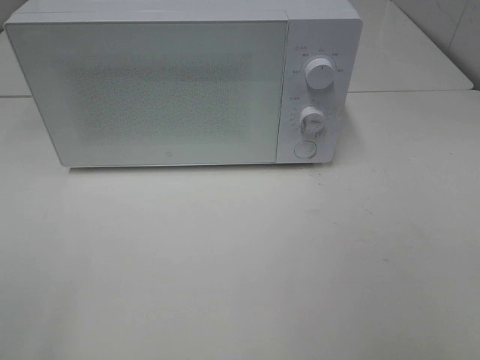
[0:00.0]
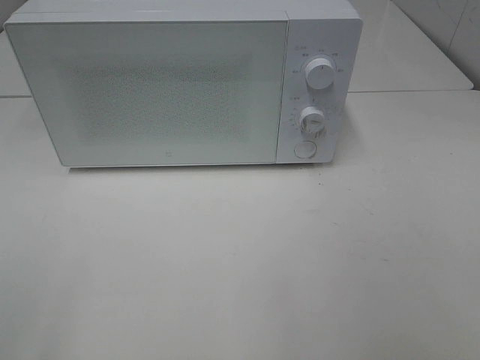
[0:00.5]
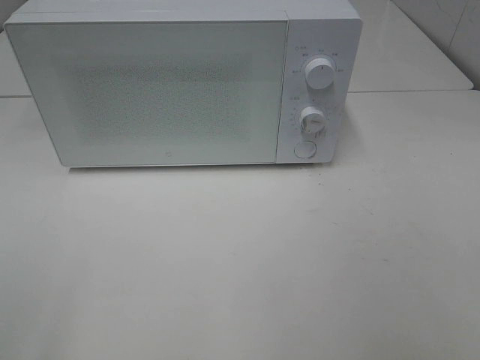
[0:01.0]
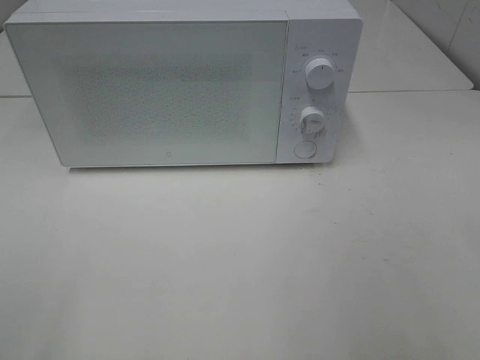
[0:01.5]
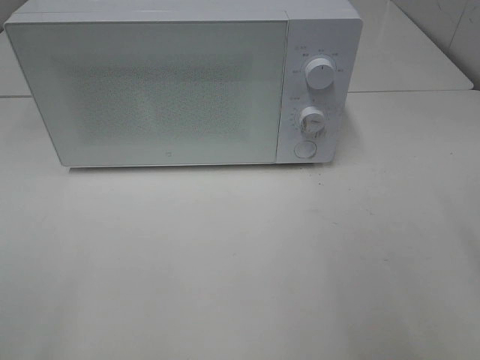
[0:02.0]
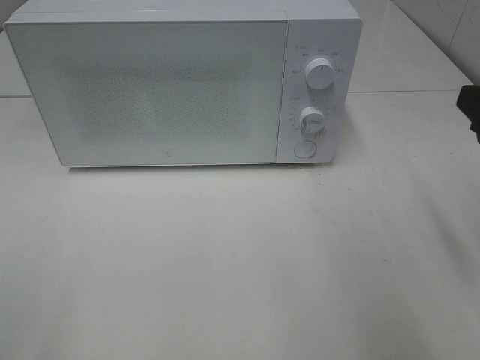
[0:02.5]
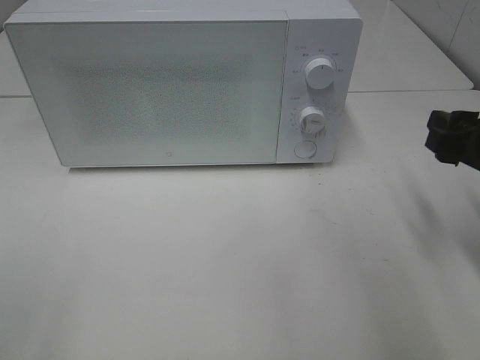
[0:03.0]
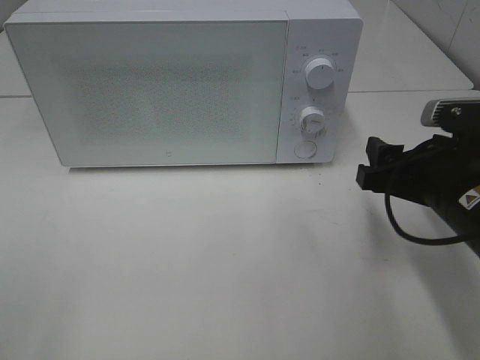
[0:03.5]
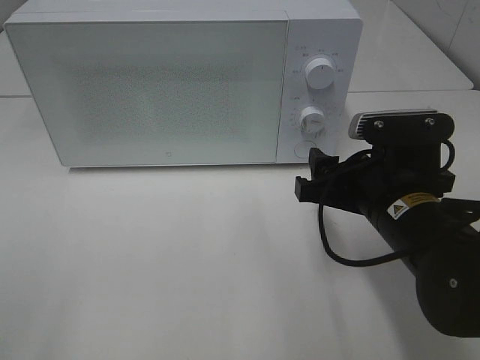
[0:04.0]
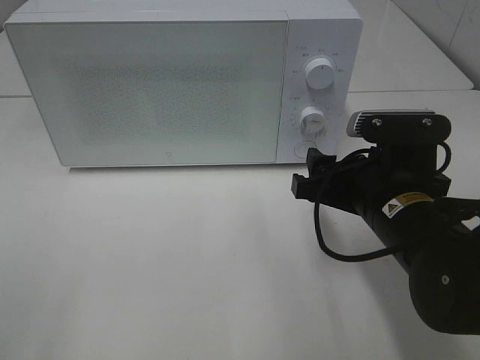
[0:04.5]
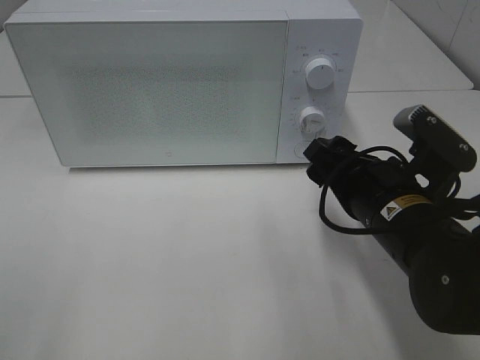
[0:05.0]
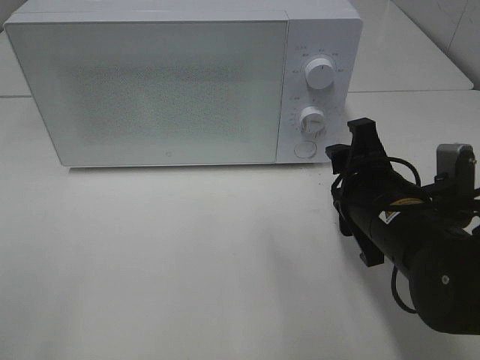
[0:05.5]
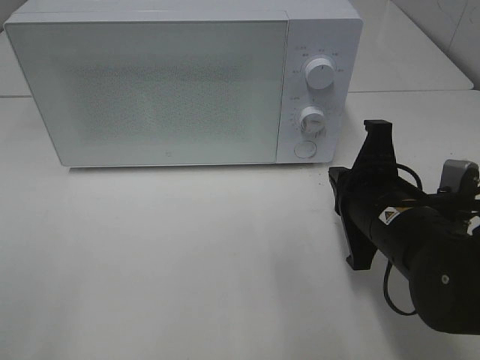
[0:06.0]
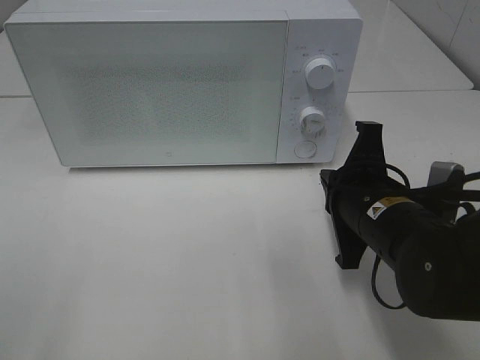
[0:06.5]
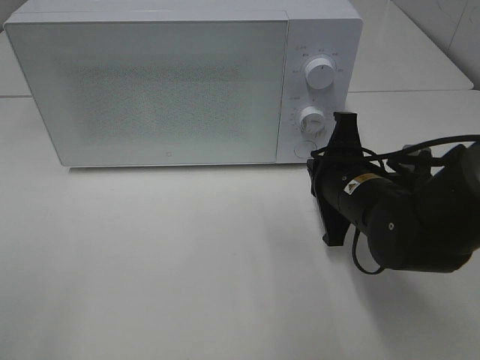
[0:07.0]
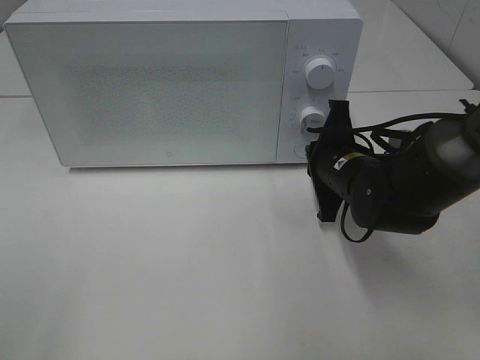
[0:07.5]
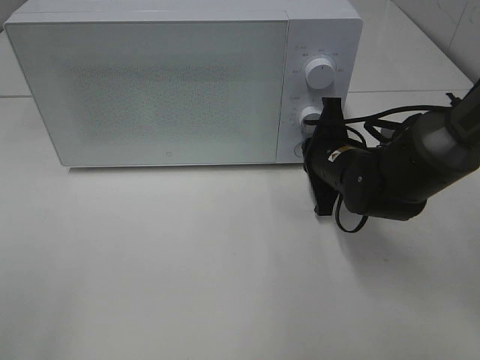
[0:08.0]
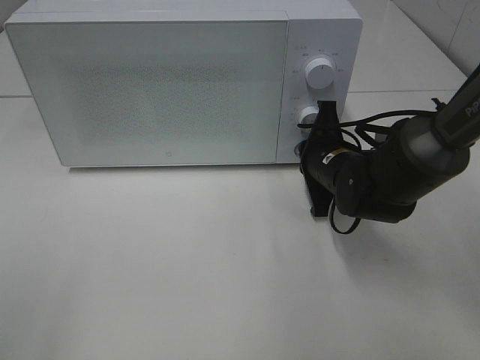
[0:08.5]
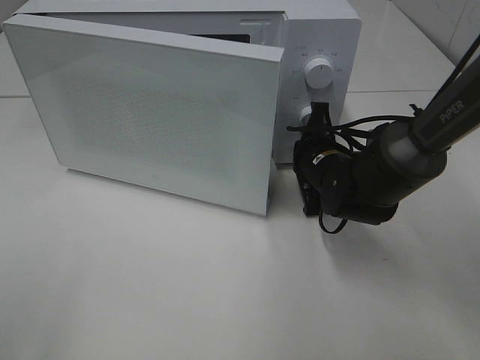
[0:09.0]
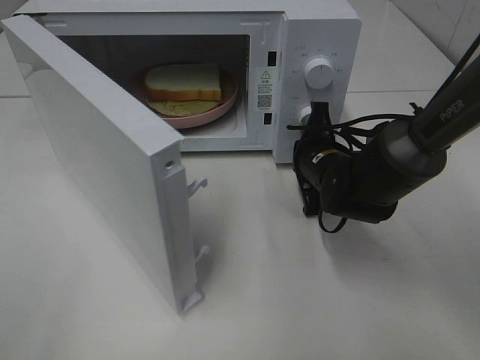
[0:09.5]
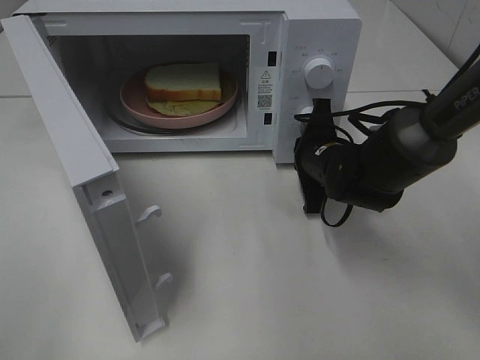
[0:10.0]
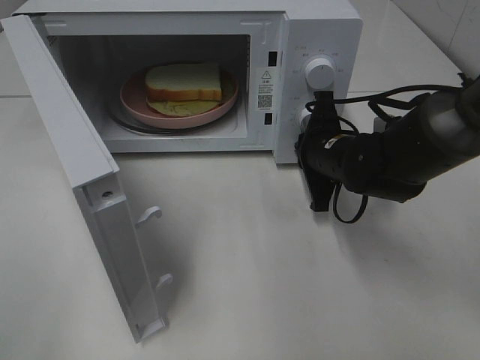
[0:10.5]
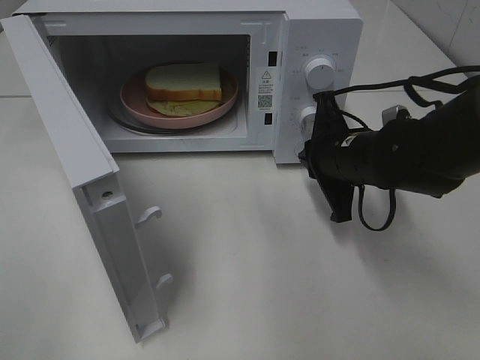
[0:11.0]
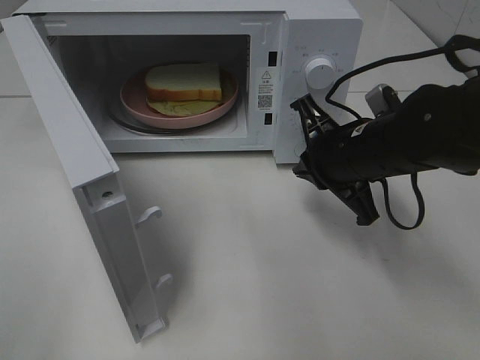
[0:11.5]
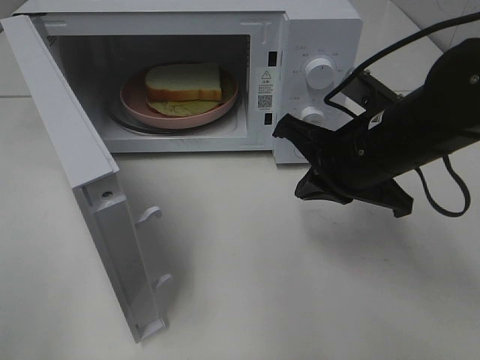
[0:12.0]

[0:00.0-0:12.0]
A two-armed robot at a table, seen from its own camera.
Task of the whole recording: Heat Sandwich.
Step, 0.0 to 10.5 s: Right hand: press the switch.
2.0 to 4.0 s: The right gripper travels downward, to the left and forward by roughly 20 cm.
4.0 to 6.0 s: The right gripper closes its fingers.
6.0 to 8.0 s: The right gripper is displaced forward by about 10 cm.
10.0 to 12.0 s: The right gripper shifts about 15 cm upward and backward.

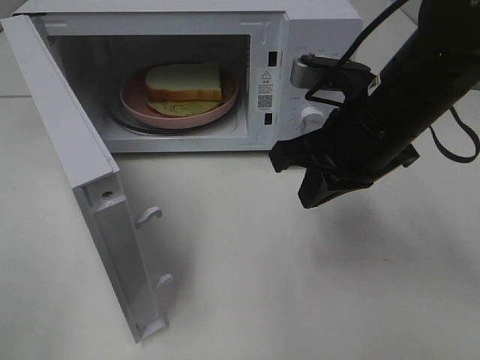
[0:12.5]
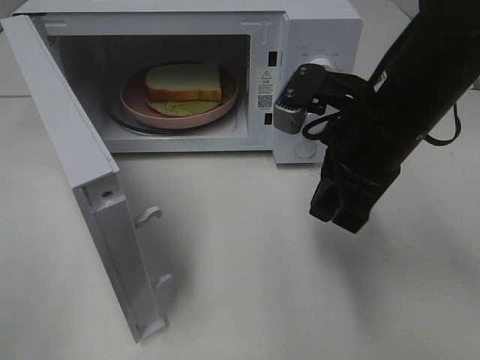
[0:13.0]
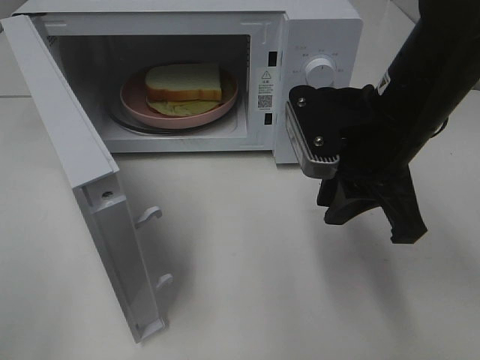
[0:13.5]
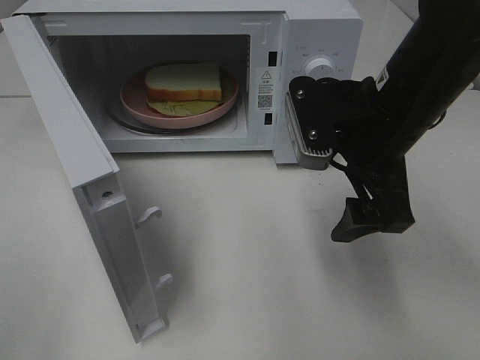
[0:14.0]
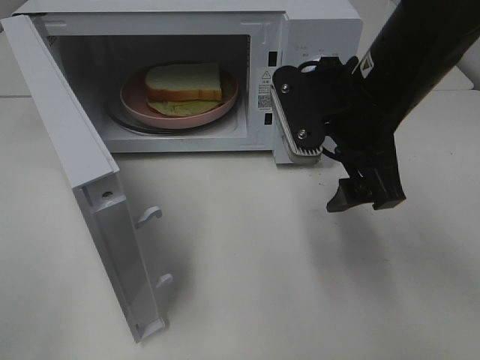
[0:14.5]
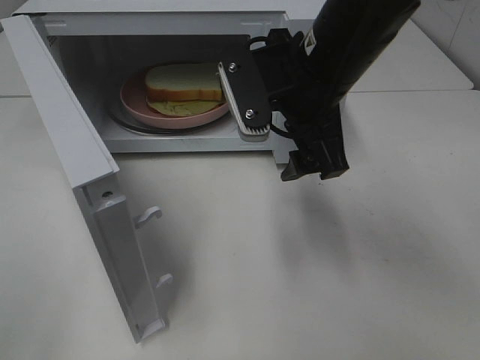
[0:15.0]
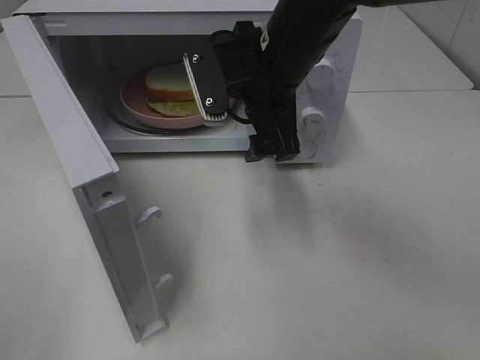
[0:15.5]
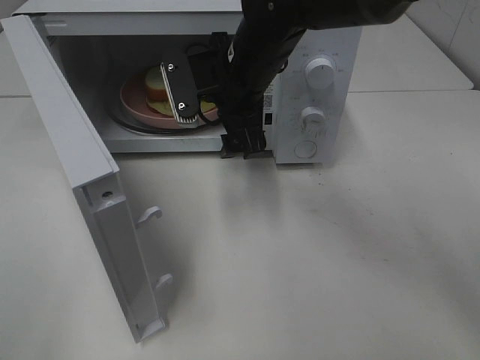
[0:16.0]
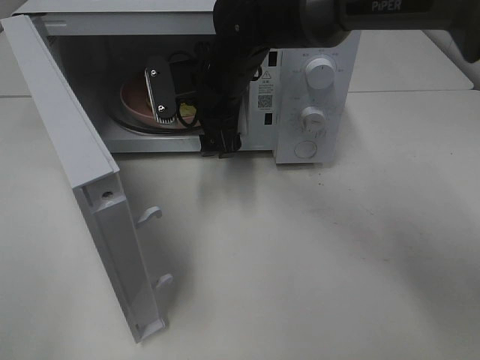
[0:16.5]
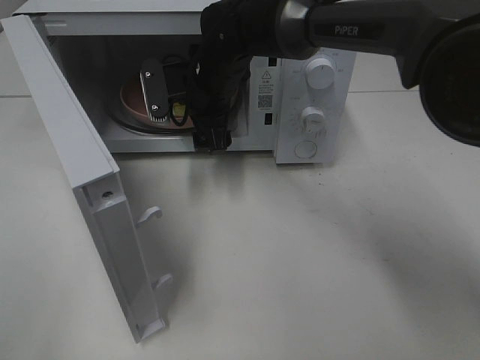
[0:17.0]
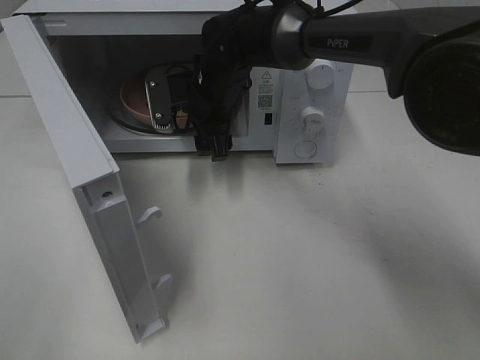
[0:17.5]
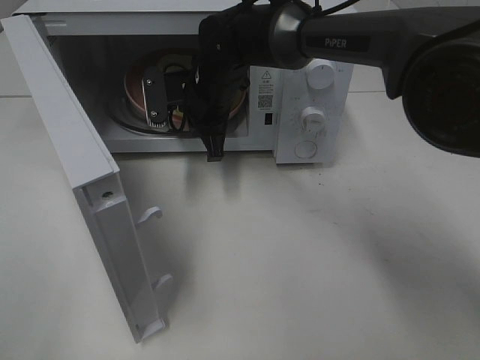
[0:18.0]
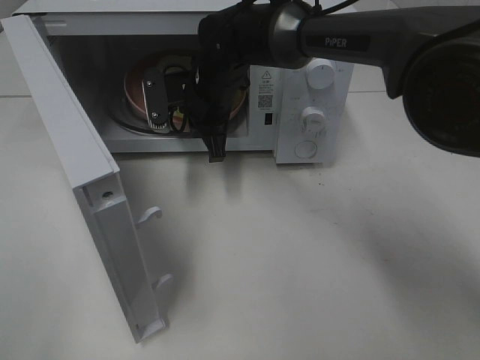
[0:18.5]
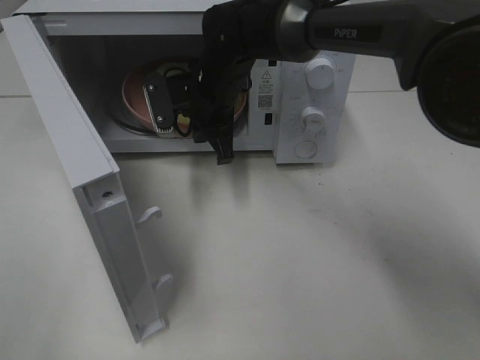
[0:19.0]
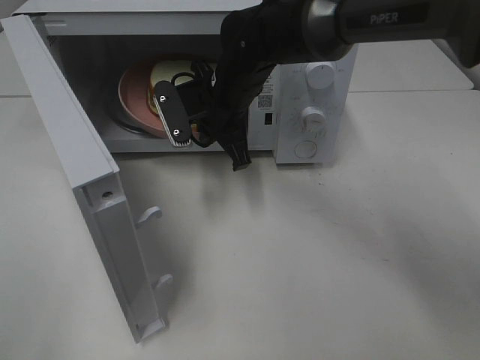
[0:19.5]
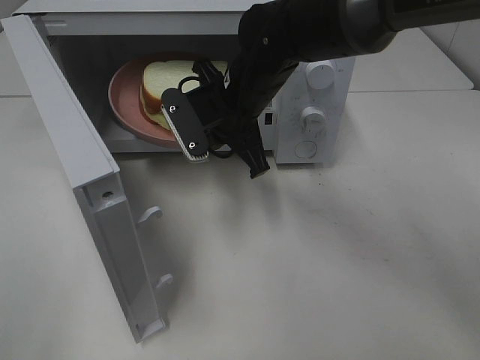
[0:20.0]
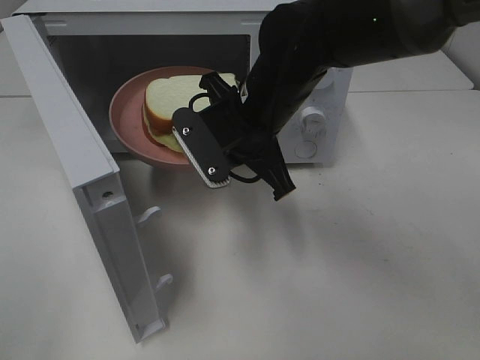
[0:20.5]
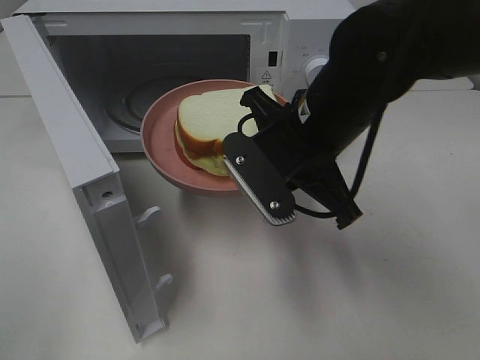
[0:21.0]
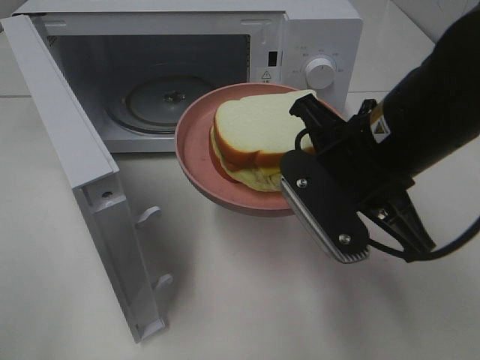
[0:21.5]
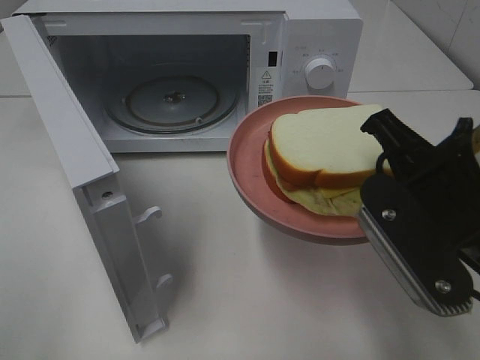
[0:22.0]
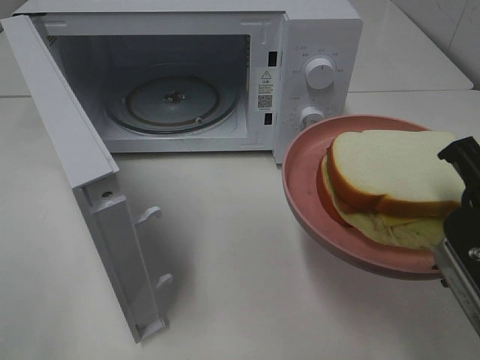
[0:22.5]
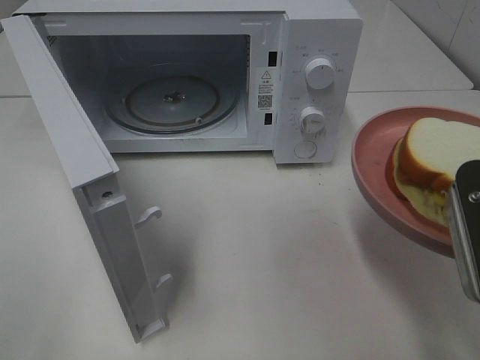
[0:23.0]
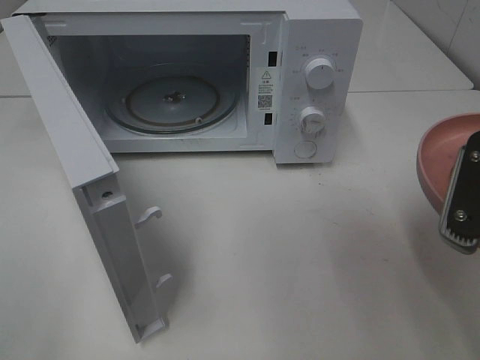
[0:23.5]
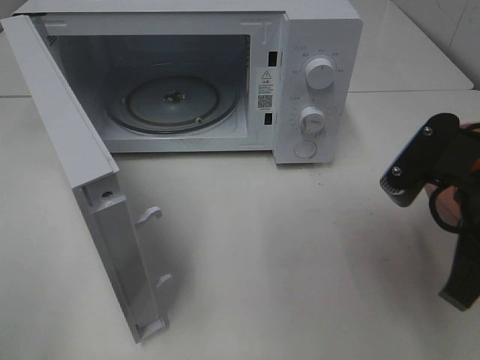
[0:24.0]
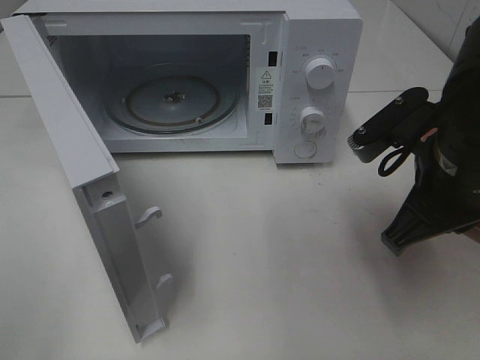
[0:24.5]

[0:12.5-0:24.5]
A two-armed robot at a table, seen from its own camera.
Task of the whole recording: Heat Sandwich.
Step, 12.5 to 18.5 s: Right hand: grab the plate with the sandwich.
12.5 to 14.5 s: The right gripper opens up.
14.5 to 16.5 s: The right gripper goes roughly 20 cm forward, to the left and downward.
16.5 to 18.5 s: The right gripper closes.
18.5 to 20.5 s: The right gripper goes roughly 15 cm backward and to the right.
20.5 to 22.5 s: The right gripper moves backward and to the right, some 25 cm.
22.5 to 24.5 s: The right gripper heads forward, covering roughly 10 cm.

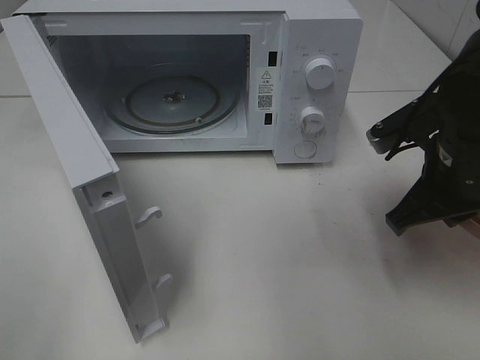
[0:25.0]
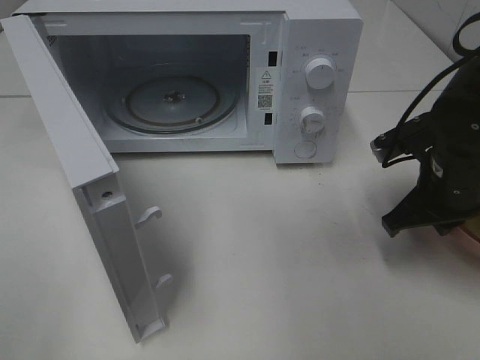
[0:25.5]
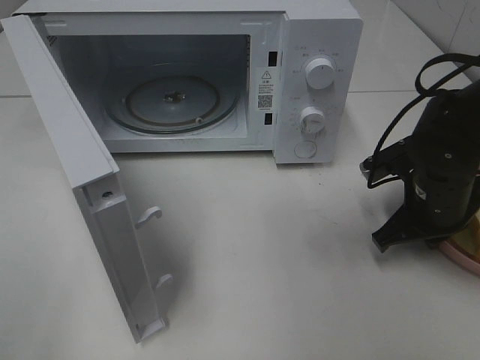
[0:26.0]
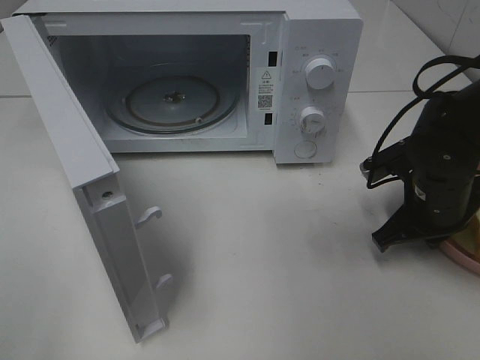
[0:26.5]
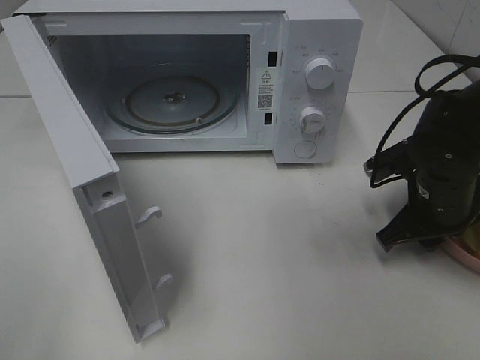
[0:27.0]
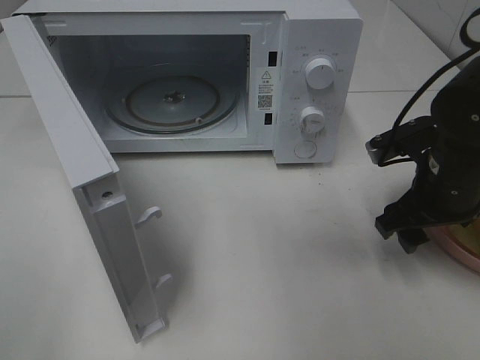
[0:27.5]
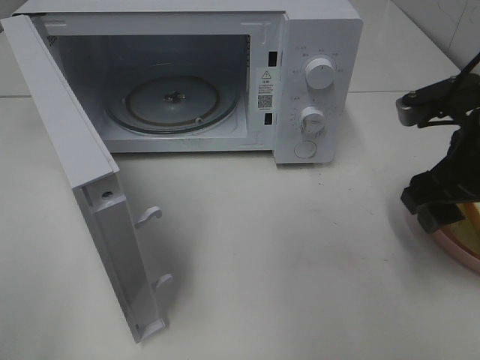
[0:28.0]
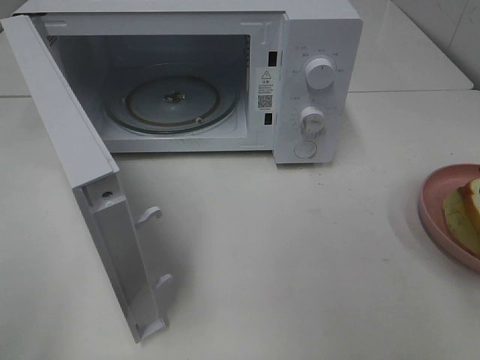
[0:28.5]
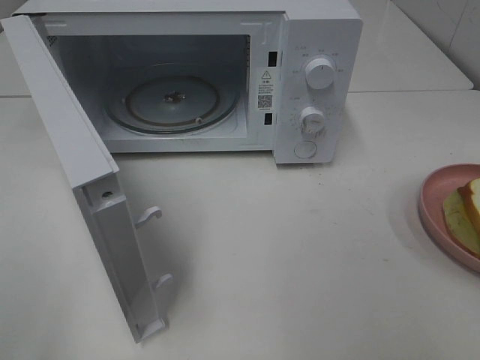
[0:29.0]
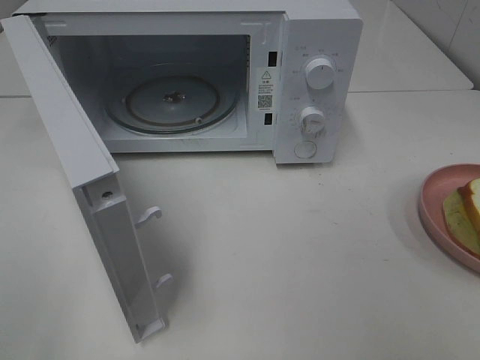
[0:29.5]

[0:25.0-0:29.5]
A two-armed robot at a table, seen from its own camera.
Task of the whole recording: Heat Sandwich.
Step, 25.0 to 27.5 s: Right hand: place the plate on the table.
25.0 to 27.0 s: The right gripper shifts about 10 cm downward, and opens its fingers.
27.0 to 29.5 s: The right gripper is displaced backward and upward by approximately 35 cm.
